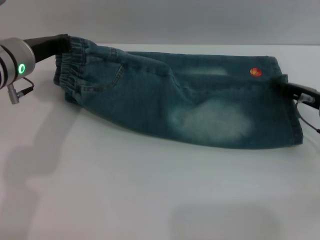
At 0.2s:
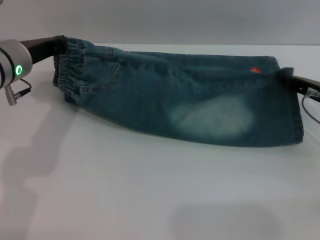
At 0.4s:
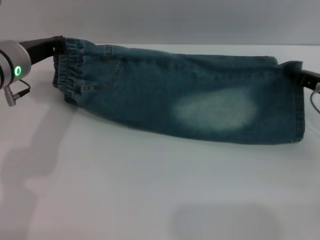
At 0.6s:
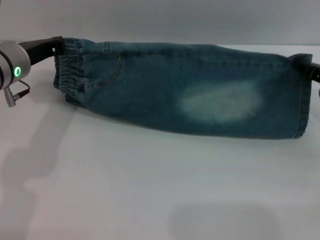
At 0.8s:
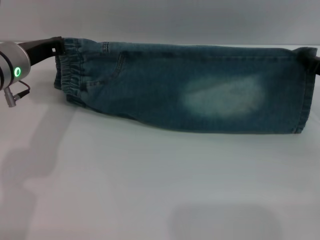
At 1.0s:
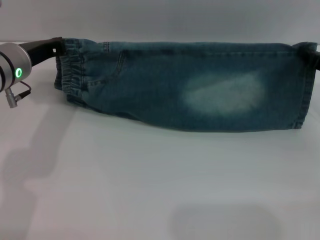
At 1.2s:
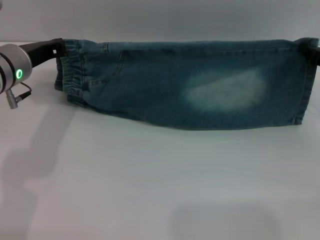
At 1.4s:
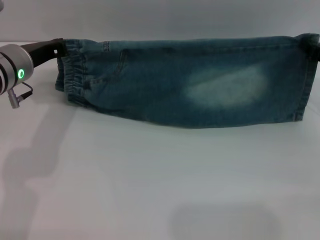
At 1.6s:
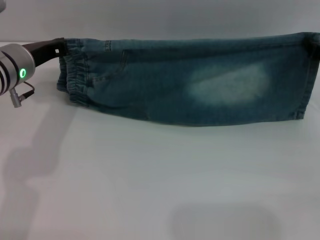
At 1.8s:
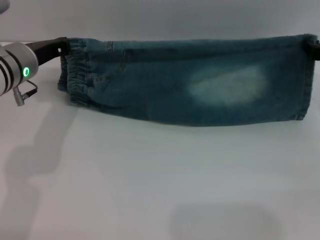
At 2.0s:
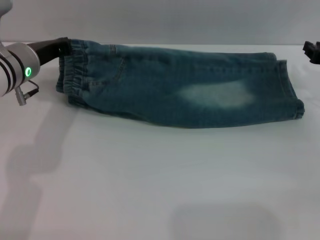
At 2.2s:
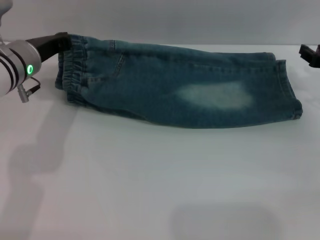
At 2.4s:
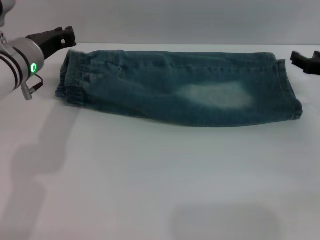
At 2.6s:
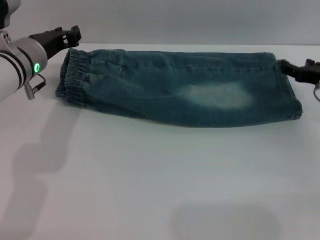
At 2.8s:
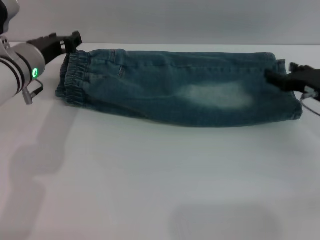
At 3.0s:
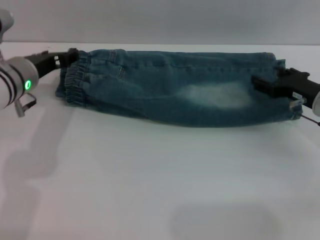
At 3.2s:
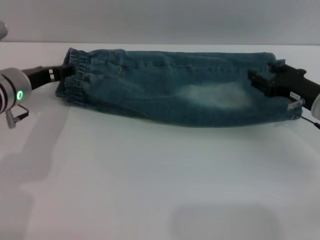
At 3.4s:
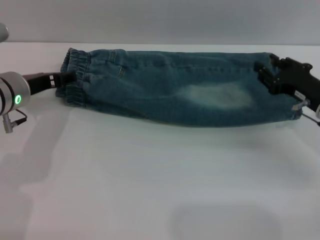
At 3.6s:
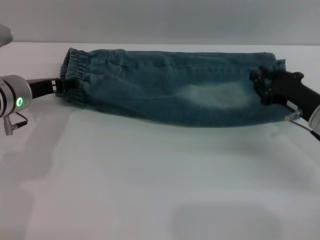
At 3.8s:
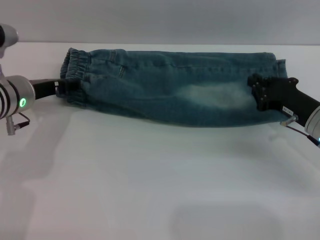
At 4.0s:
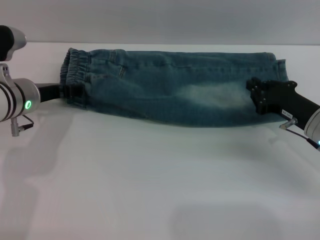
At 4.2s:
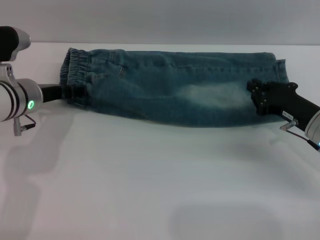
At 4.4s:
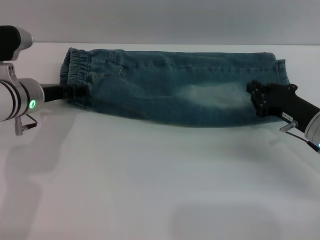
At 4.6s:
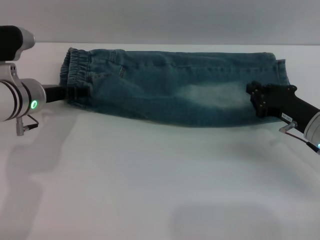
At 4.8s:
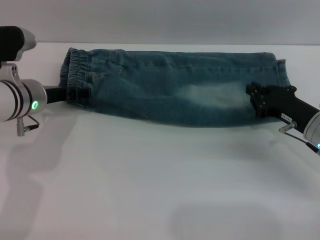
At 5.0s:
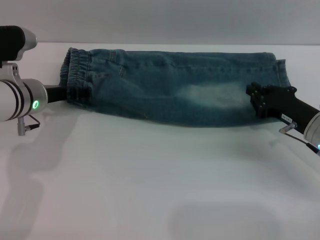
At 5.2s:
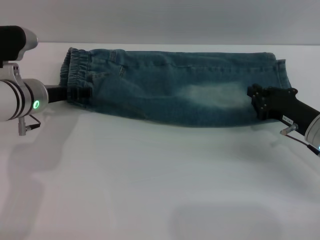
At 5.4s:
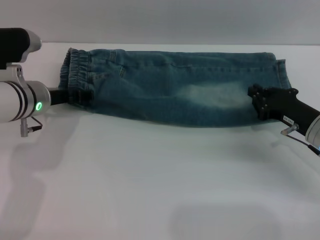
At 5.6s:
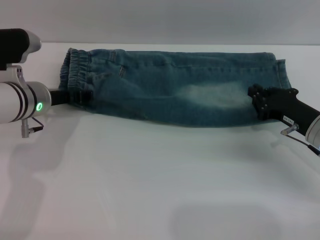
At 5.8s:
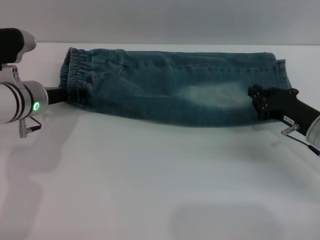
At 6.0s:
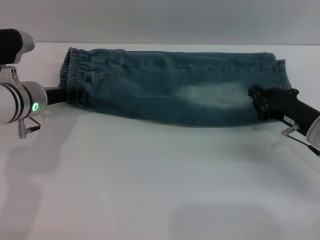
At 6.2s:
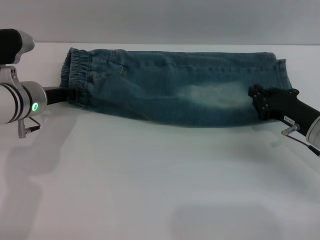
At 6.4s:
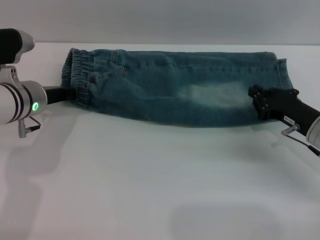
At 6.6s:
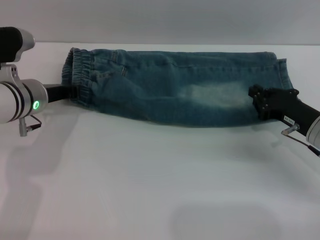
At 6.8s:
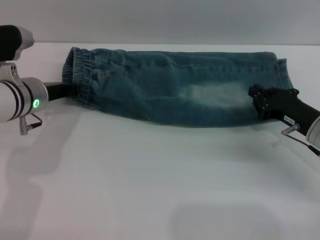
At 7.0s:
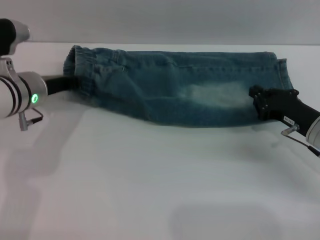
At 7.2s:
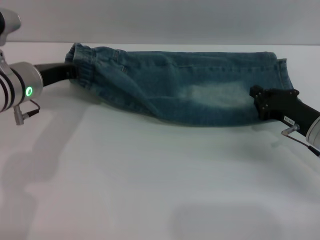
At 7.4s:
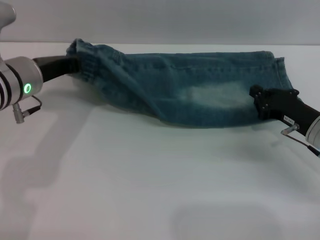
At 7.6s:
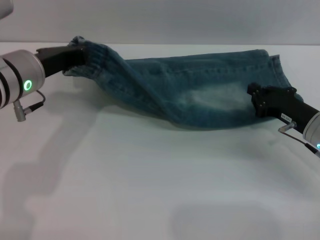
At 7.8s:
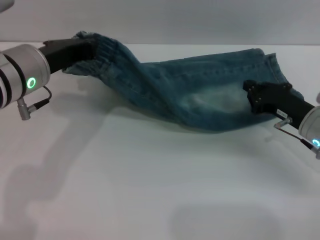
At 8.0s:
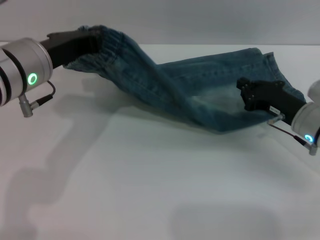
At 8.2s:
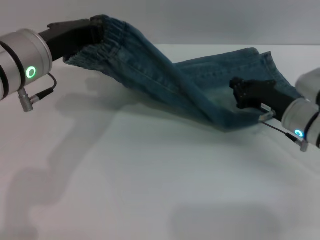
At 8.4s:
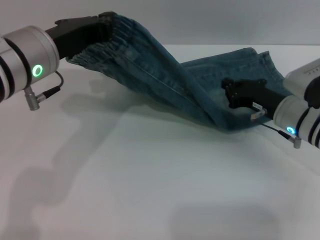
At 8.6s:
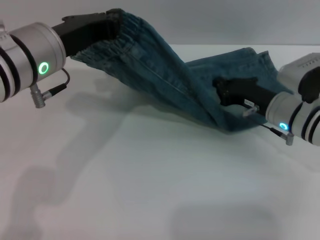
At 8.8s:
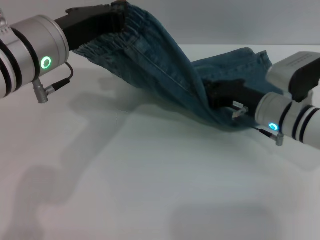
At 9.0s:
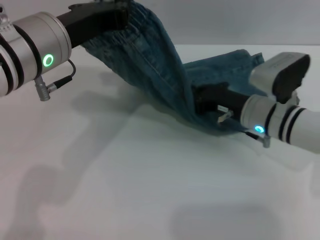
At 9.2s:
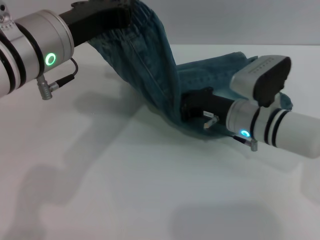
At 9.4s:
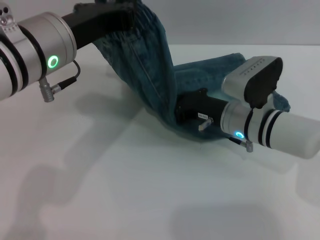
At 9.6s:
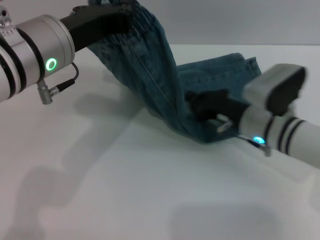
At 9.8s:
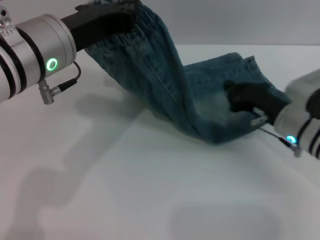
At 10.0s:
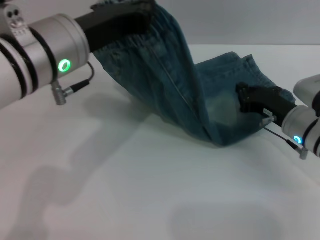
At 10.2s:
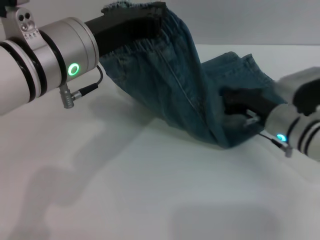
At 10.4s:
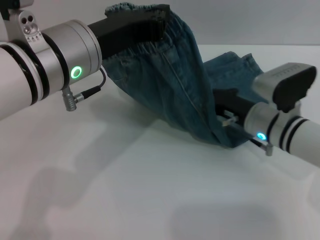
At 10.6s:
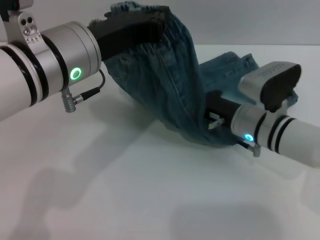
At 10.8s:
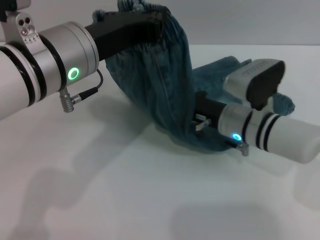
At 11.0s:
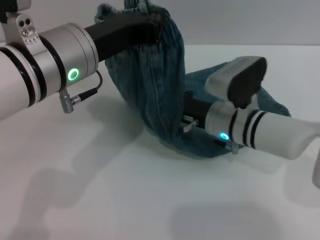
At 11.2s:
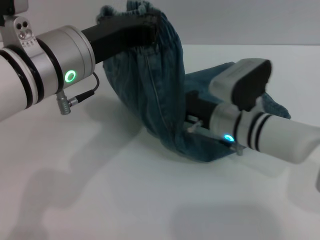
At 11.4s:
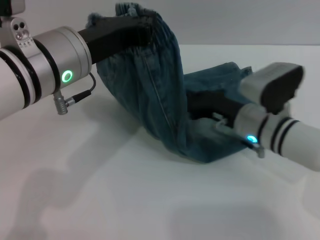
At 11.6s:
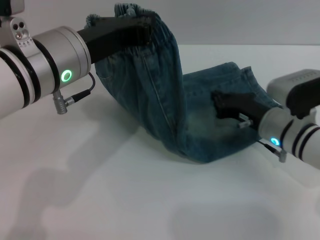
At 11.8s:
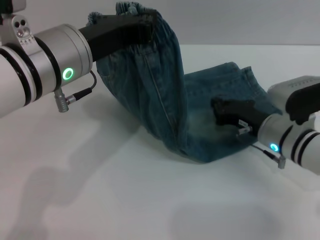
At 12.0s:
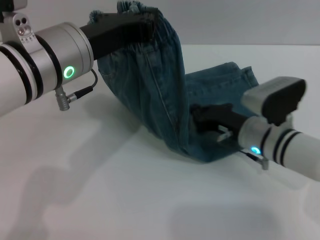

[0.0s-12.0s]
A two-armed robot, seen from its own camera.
Step, 0.0s to 2.2s: Fold the bottom of the pants upward with both grippers.
0.0s to 1.6s: The right gripper shifts approximately 5 cm upward.
1.6s to 3.0s: The right gripper ends up some 5 cm from where it was, and opens its fingers, while the left gripper opens its fingers.
3.0s to 4.4s: The right gripper closes its fingers.
4.4s to 6.0s: The two grippers keep their place.
6.0s to 7.6s: The left gripper is displaced upward by about 5 cm, and closes its fingers.
7.6s to 9.0s: The left gripper travels upward by approximately 5 cm, while the right gripper heads to the left, covering some 10 cm.
9.0s to 10.4s: The right gripper travels to the right and back again, about 5 cm each way.
10.4s to 12.0s: The right gripper goes to the left and returns, about 5 cm each way.

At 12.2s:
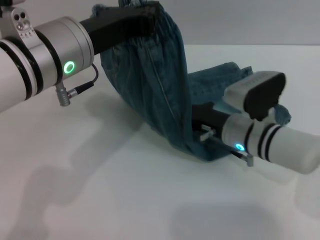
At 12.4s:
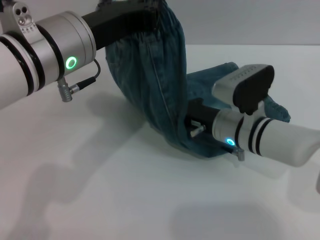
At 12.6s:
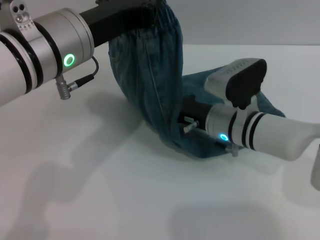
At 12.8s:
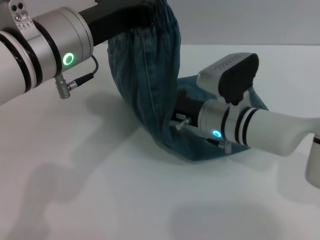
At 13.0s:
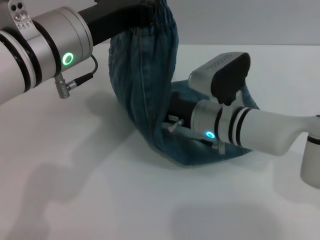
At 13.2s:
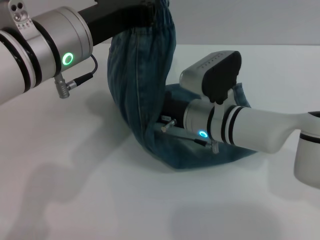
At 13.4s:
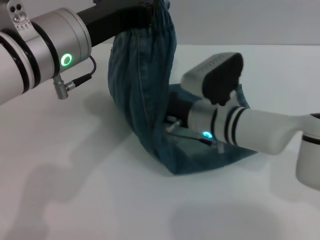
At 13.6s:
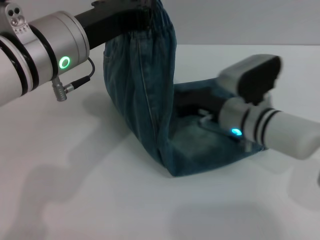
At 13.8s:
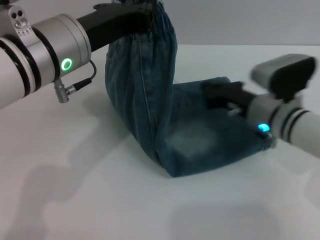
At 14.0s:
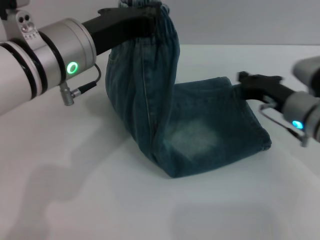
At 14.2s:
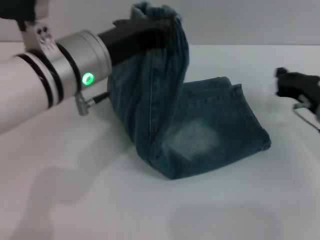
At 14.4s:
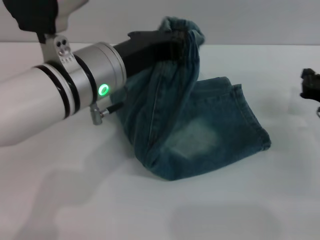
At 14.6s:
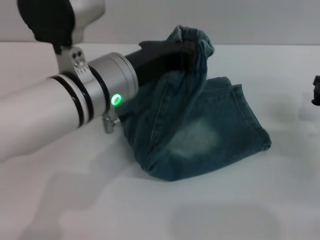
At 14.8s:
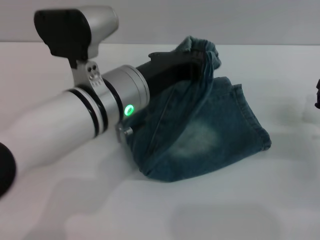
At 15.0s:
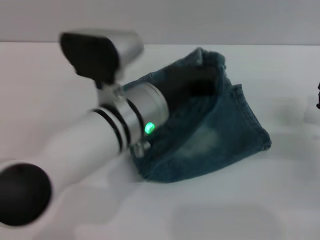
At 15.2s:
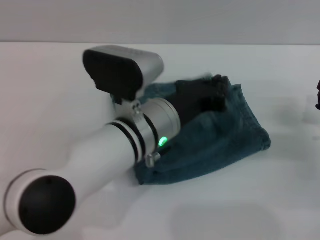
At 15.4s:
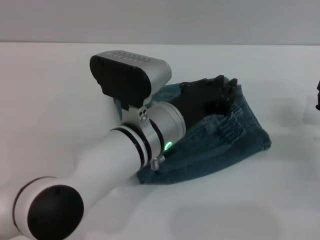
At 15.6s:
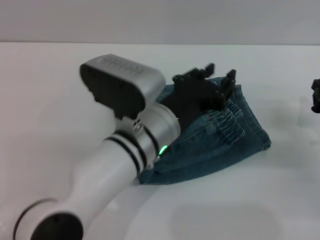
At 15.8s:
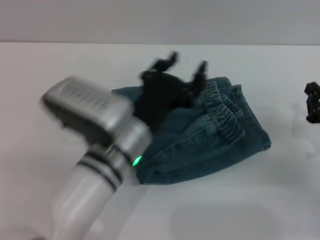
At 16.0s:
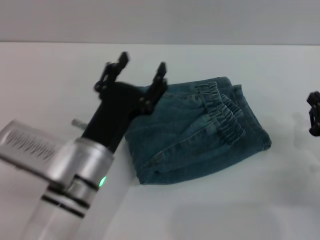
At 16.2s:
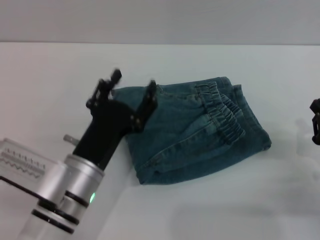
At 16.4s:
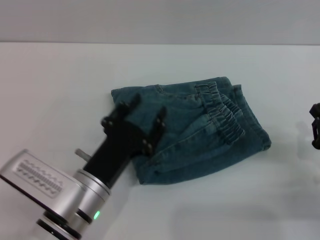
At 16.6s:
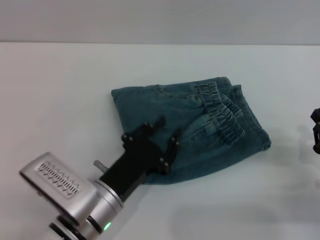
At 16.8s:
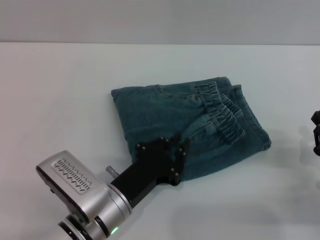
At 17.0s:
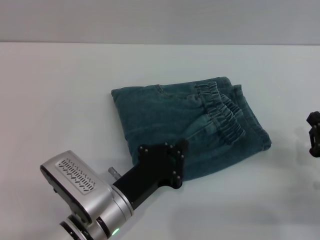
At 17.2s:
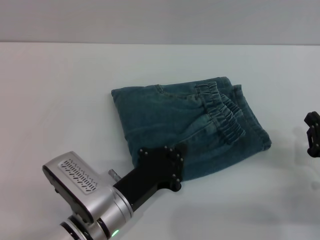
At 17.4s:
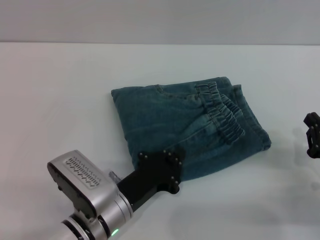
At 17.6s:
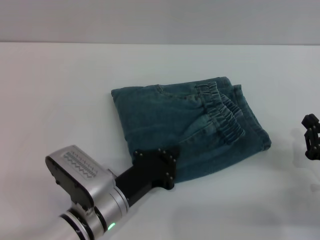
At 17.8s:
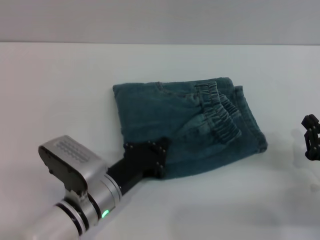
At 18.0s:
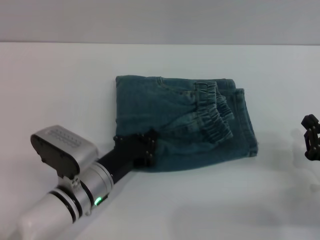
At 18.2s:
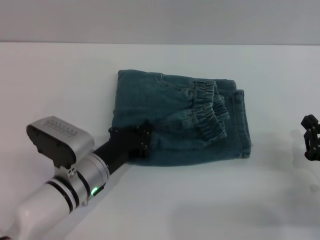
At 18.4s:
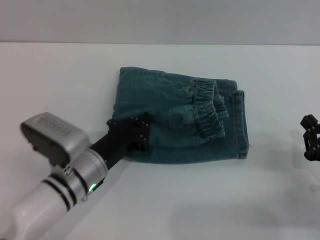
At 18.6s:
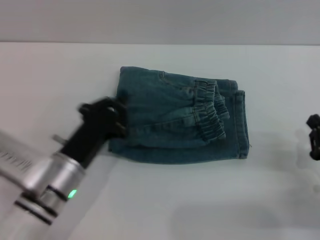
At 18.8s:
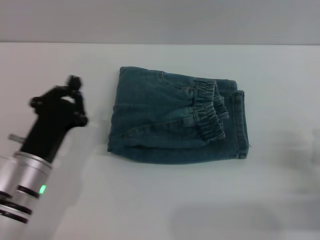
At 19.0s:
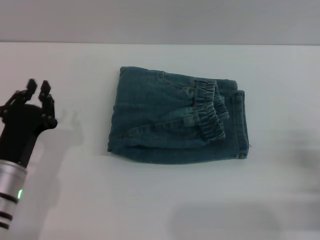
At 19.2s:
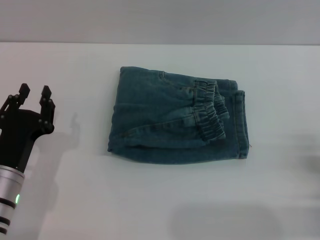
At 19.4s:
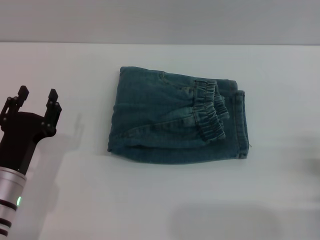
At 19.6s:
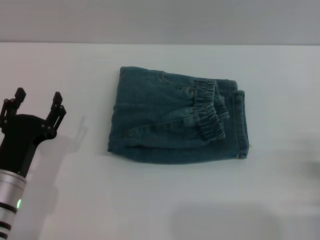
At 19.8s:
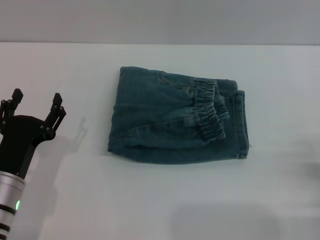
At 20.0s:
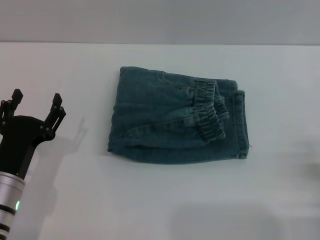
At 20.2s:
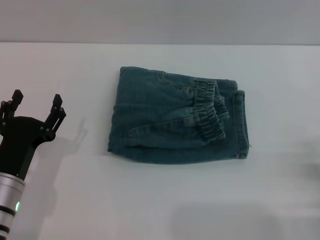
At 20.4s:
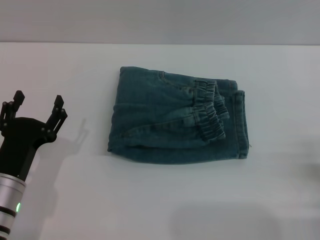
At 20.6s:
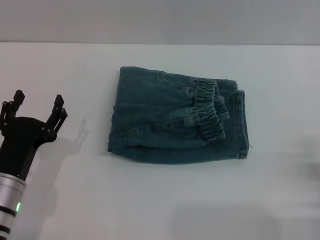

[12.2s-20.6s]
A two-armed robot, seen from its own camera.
Step, 12.2s to 15.8s: Fold the pants from left to right with the left gripper.
Step, 16.0s to 18.8s: Place the folded trousers onto the center area with the left grippers.
13.6s to 15.0s: The right gripper travels to the right by approximately 20 cm. Meanwhile the left gripper is displaced downward and to the right by approximately 10 cm.
15.0s to 16.4s: The left gripper travels downward, backward and to the left by approximately 15 cm, and opens. Meanwhile the right gripper travels backward by roughly 10 cm.
16.4s to 17.8s: The left gripper closes.
17.8s to 19.2s: The left gripper travels to the left by about 10 cm.
19.2s to 20.6s: The left gripper opens its fingers.

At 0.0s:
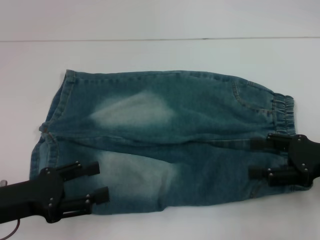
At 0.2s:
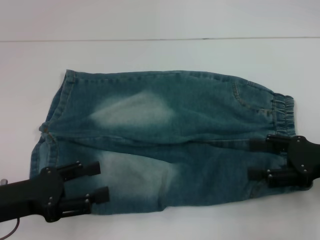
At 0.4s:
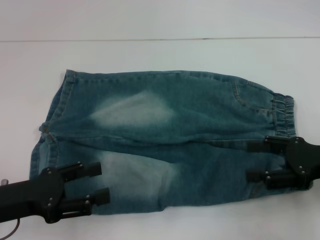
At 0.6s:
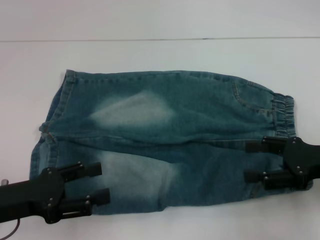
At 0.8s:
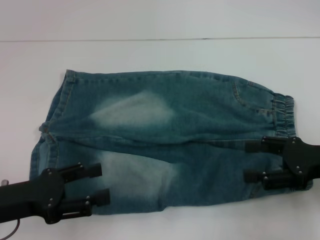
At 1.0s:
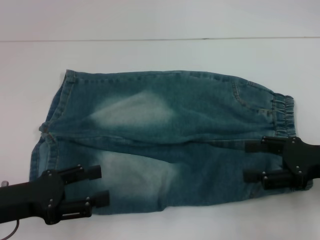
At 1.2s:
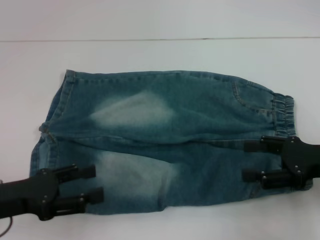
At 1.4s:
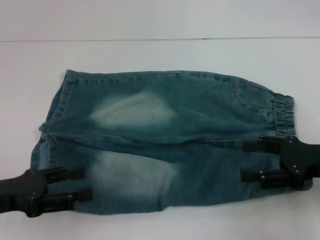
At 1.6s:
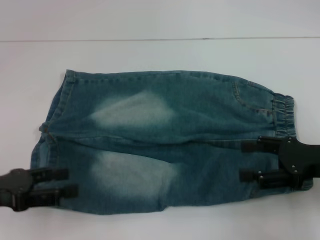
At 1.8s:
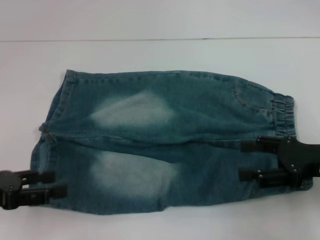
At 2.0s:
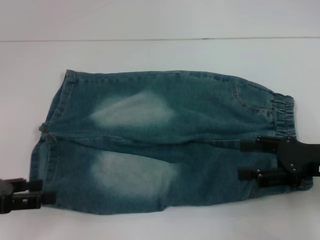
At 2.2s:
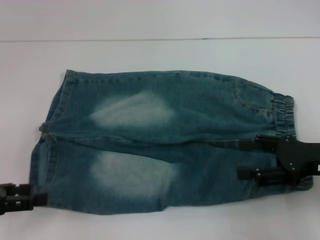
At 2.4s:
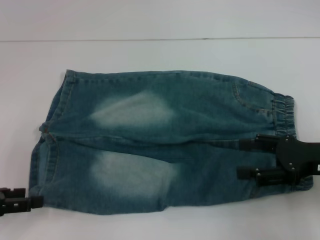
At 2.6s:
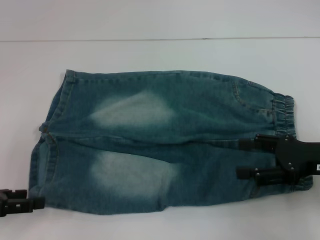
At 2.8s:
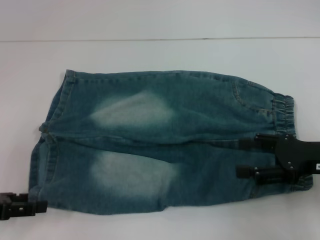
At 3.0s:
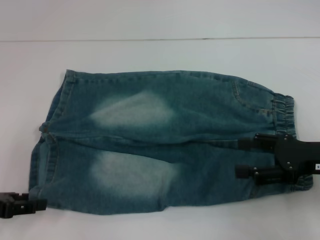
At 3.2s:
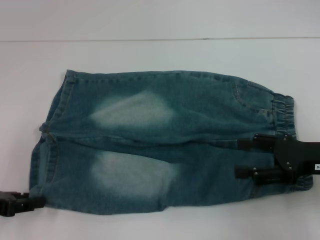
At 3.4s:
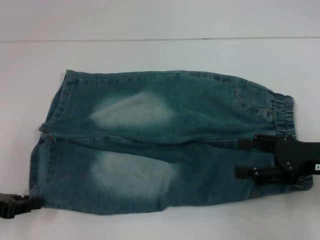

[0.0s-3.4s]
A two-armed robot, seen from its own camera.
0.0s to 1.6s: There are only small adjustments of the grippers.
1.6s to 3.4s: The left gripper closes.
